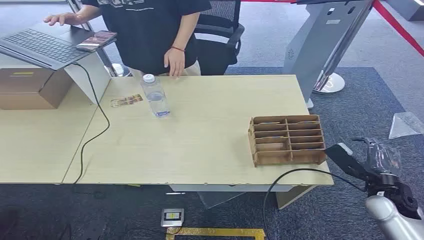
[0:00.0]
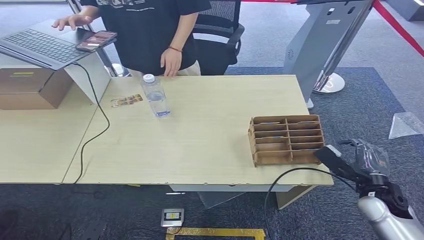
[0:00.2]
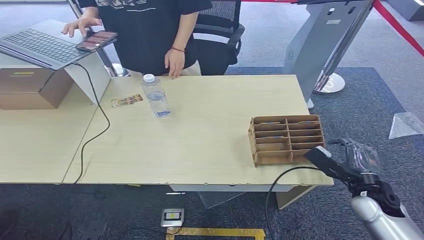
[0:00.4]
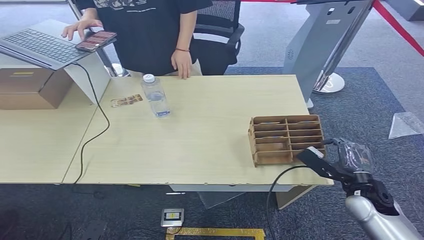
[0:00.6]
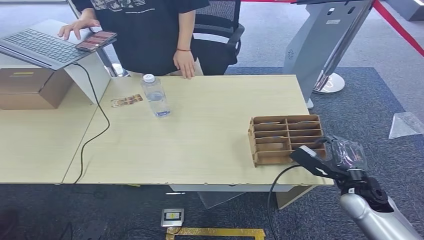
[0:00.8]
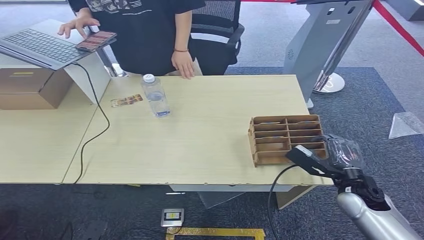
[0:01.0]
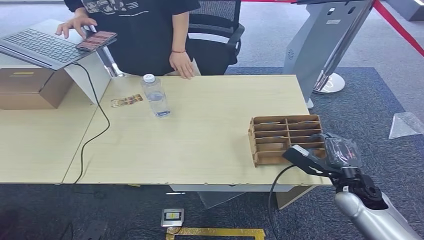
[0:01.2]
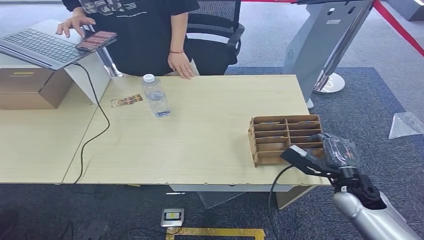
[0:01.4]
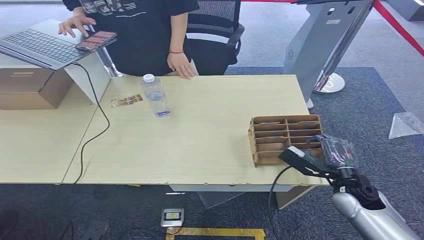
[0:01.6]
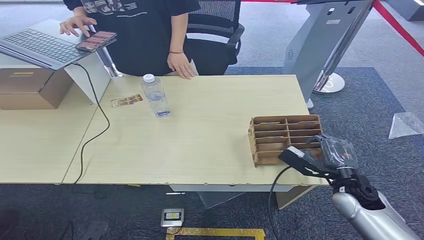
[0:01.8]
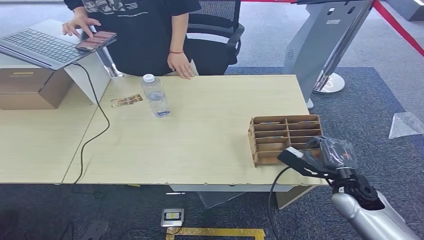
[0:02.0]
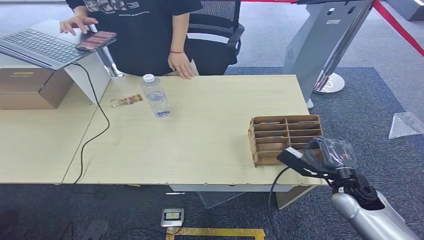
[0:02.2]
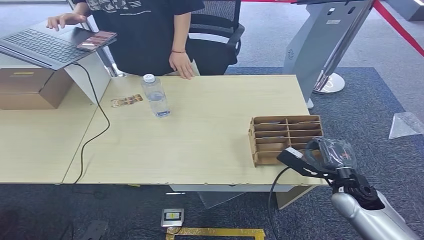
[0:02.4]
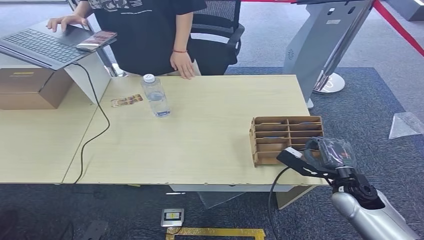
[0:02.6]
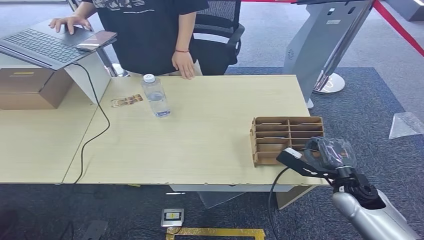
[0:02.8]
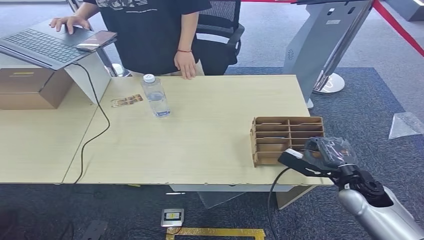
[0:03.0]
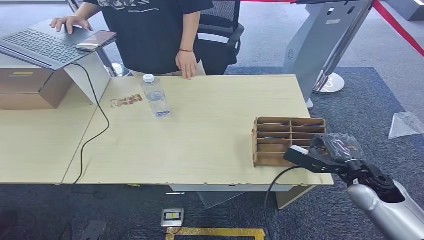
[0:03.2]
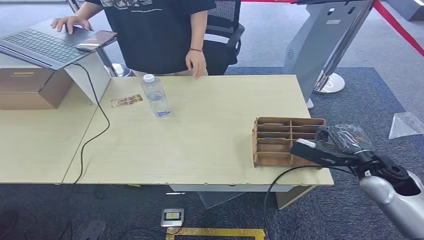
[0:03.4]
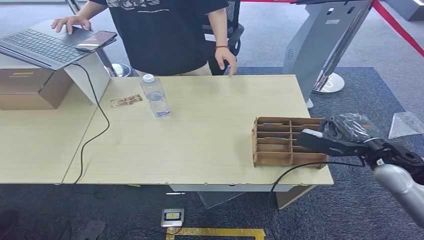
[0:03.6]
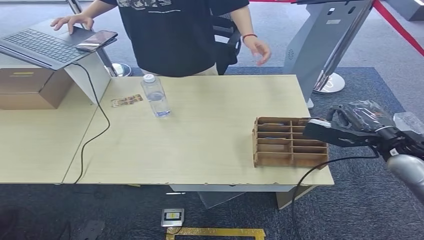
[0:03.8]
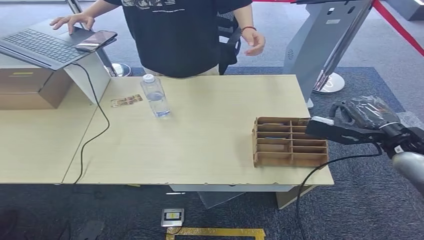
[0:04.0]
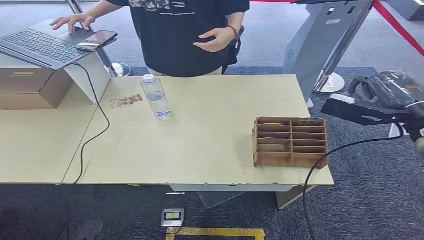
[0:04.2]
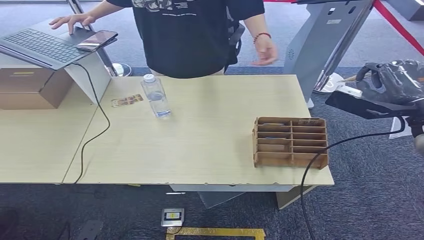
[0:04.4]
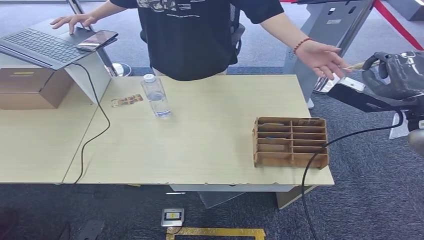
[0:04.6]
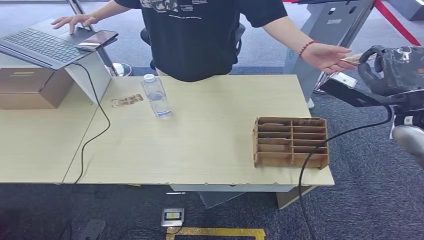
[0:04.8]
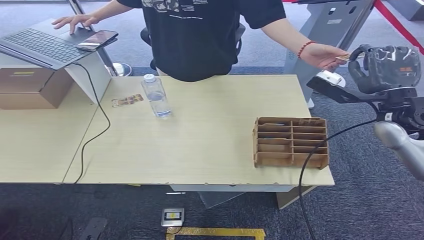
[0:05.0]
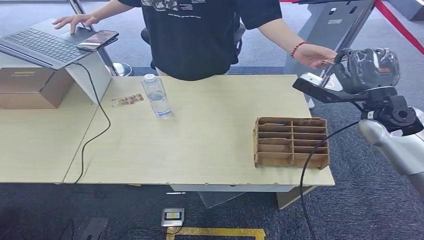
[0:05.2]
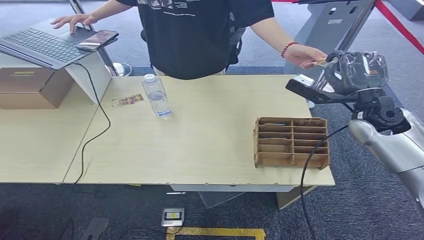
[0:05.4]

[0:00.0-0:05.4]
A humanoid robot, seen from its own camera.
Step, 0:00.0 to 0:03.8: Pick up the room card from the card holder.
Step, 0:04.2 to 0:05.4: Hand the room card to the target.
0:01.4 to 0:02.8: The hands stay close to where they were, moving slightly.
0:02.8 to 0:04.0: The right hand moves upward, some 15 cm.
0:04.0 to 0:05.4: The right hand goes some 10 cm forward.
